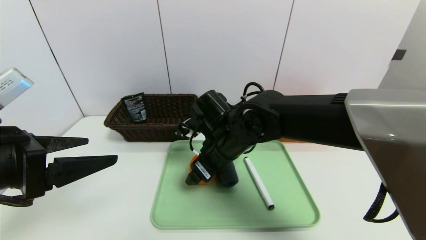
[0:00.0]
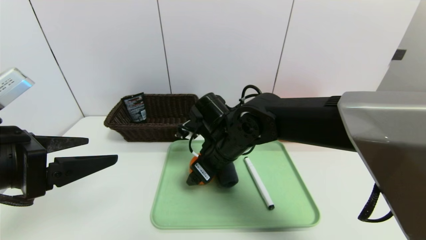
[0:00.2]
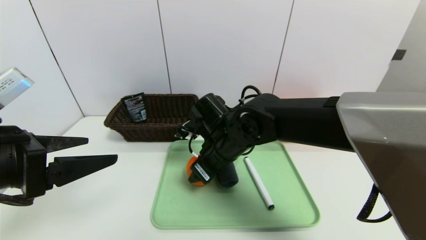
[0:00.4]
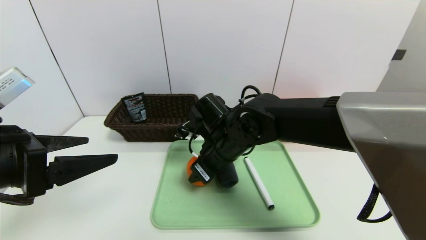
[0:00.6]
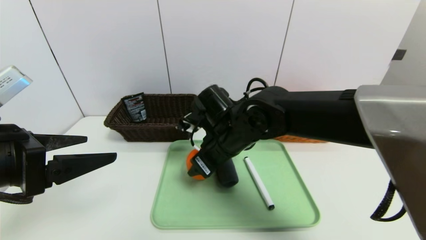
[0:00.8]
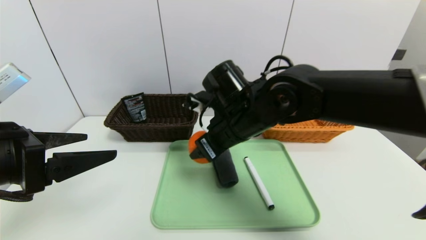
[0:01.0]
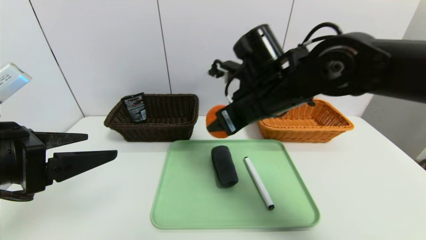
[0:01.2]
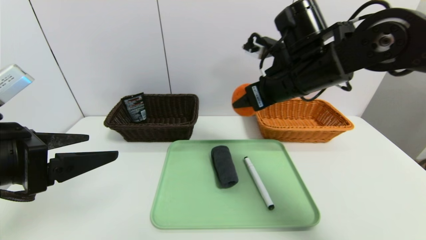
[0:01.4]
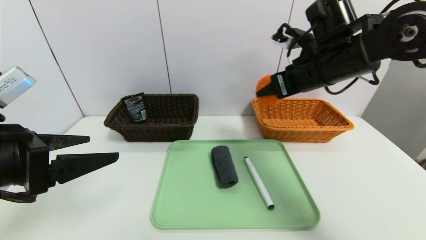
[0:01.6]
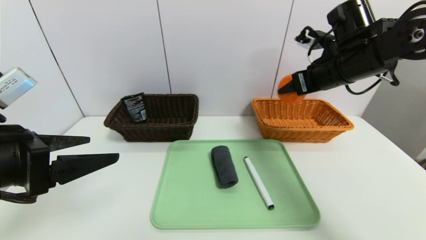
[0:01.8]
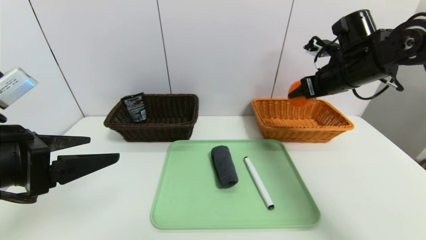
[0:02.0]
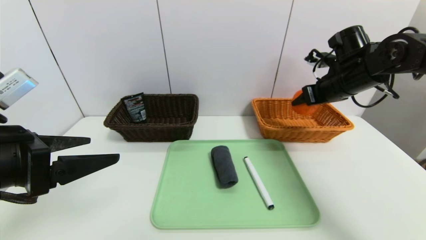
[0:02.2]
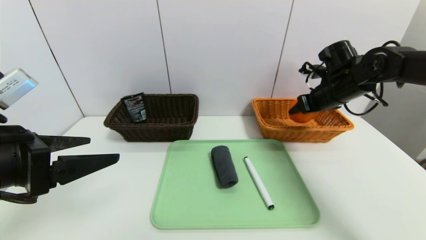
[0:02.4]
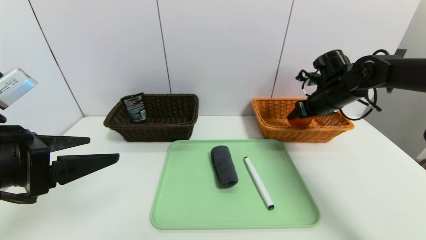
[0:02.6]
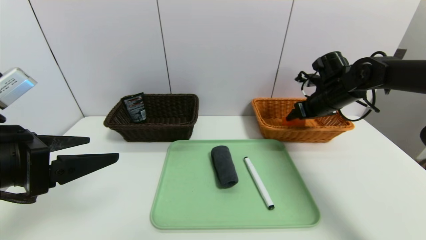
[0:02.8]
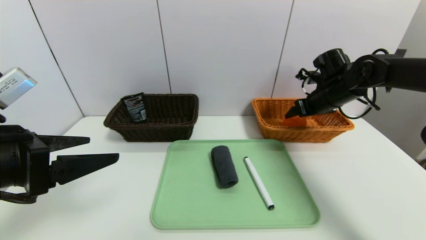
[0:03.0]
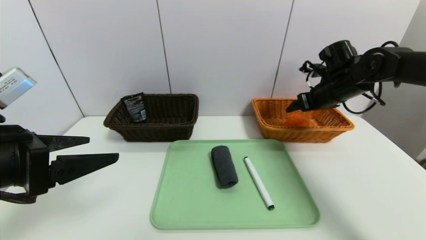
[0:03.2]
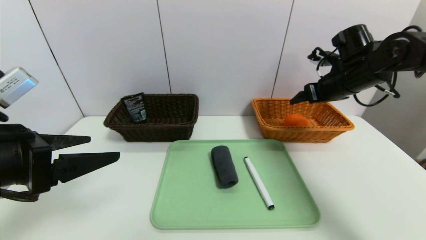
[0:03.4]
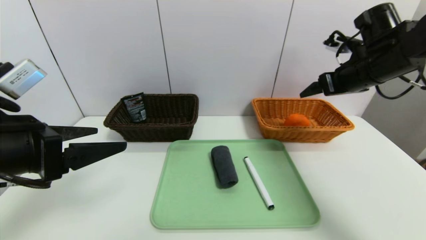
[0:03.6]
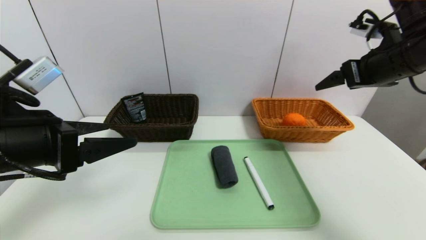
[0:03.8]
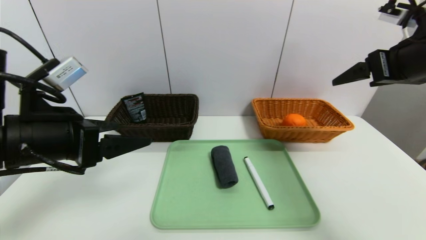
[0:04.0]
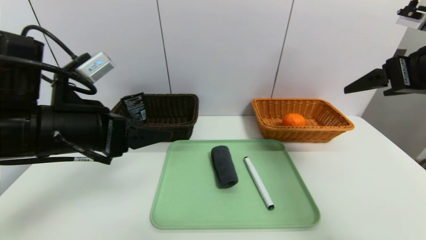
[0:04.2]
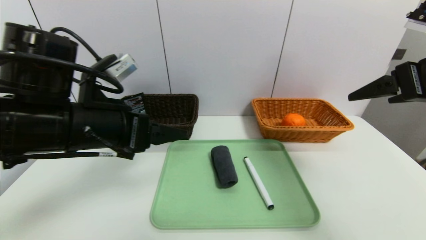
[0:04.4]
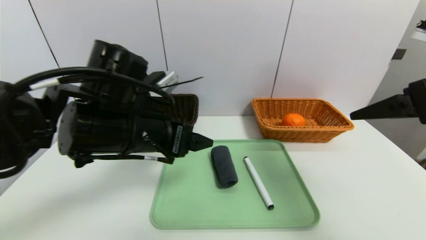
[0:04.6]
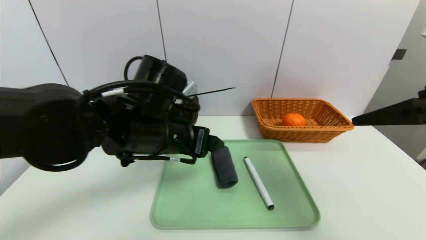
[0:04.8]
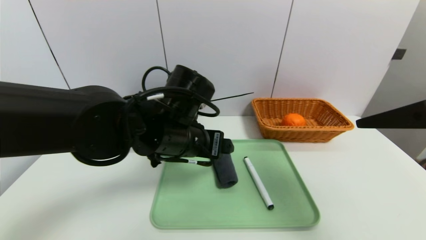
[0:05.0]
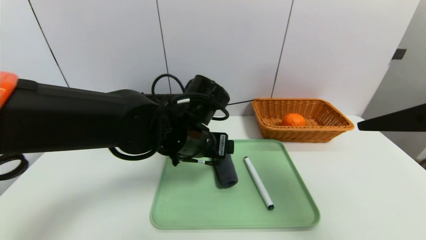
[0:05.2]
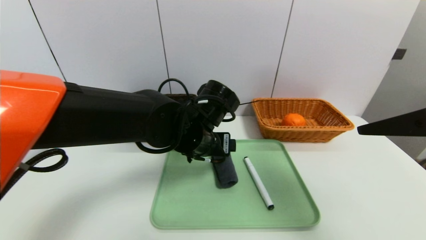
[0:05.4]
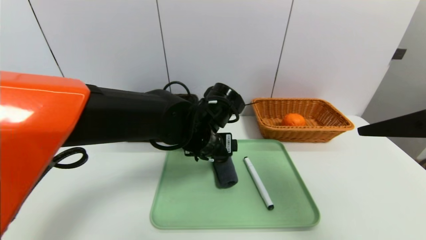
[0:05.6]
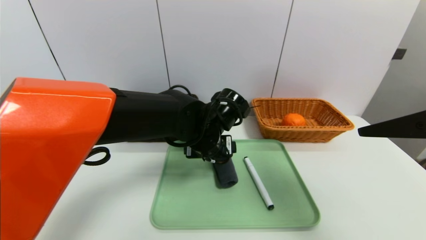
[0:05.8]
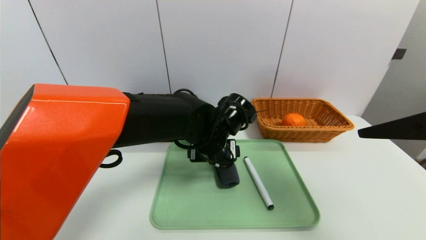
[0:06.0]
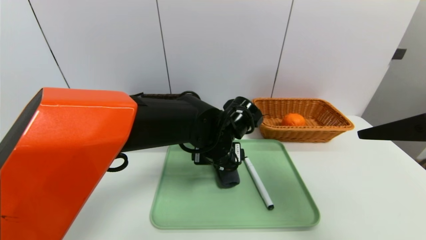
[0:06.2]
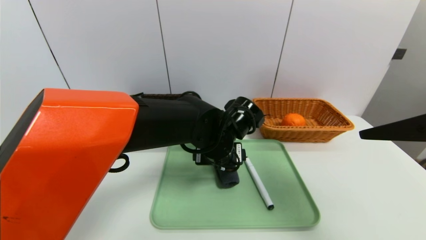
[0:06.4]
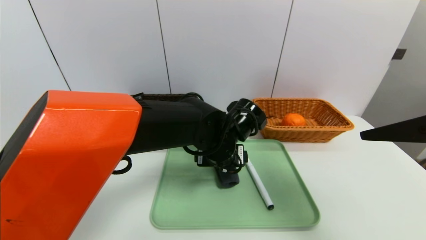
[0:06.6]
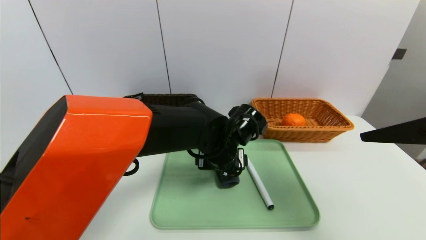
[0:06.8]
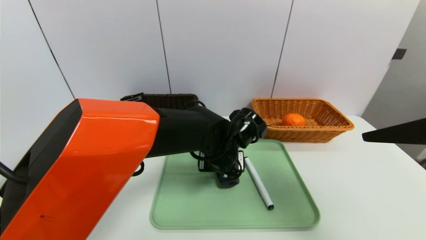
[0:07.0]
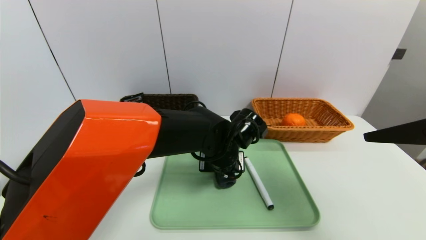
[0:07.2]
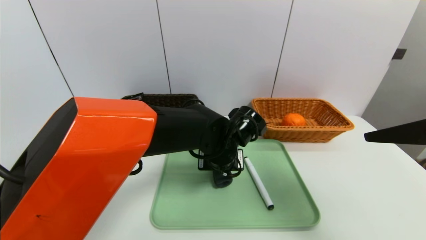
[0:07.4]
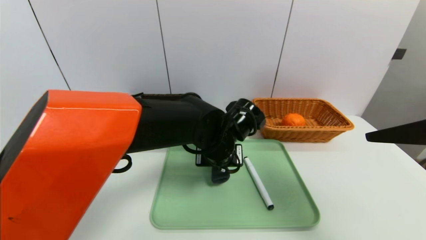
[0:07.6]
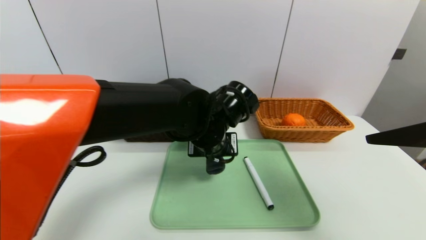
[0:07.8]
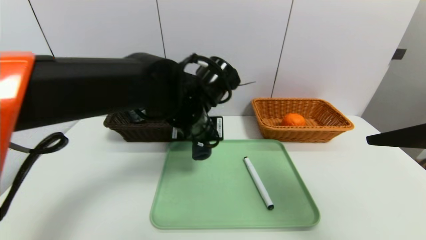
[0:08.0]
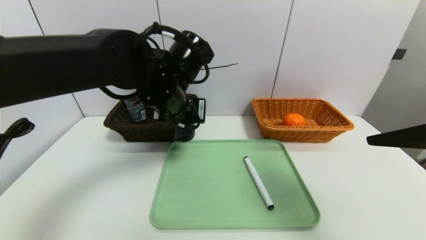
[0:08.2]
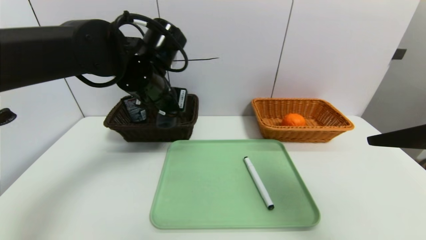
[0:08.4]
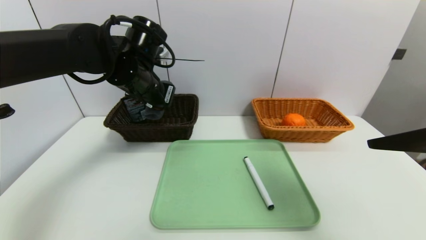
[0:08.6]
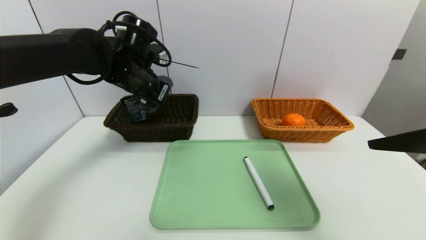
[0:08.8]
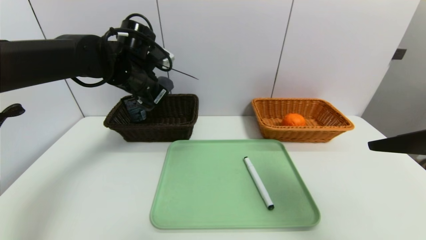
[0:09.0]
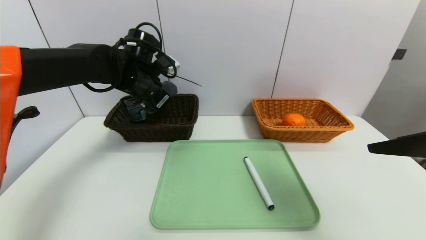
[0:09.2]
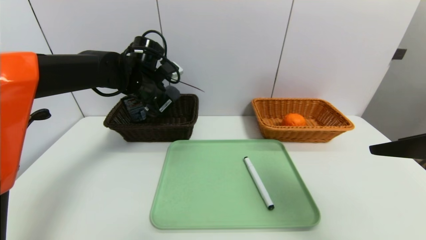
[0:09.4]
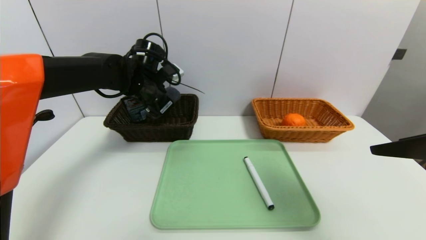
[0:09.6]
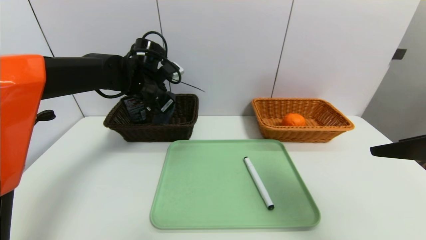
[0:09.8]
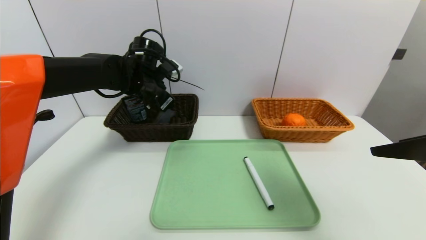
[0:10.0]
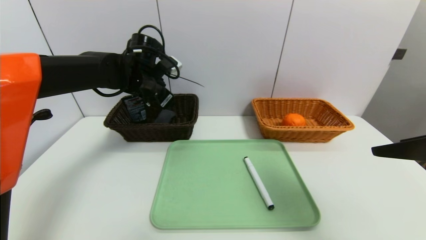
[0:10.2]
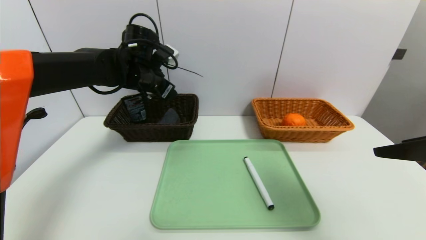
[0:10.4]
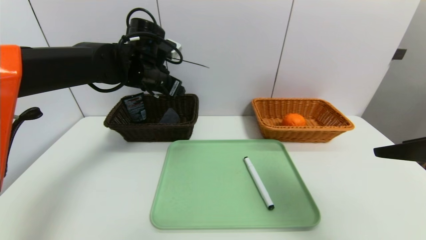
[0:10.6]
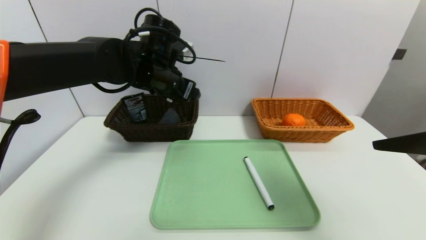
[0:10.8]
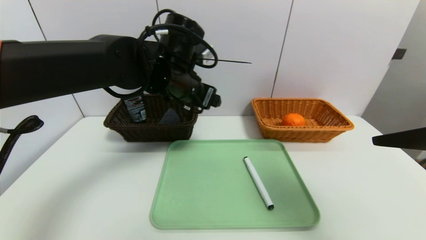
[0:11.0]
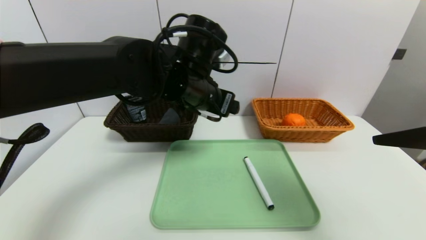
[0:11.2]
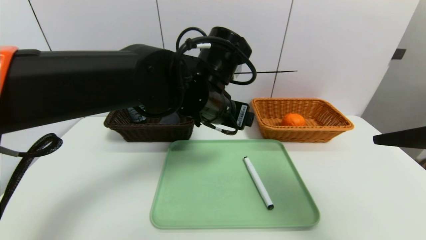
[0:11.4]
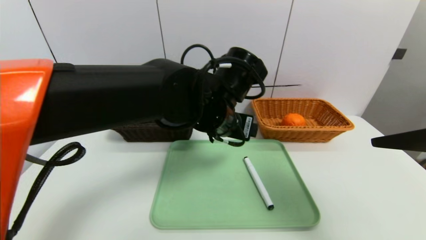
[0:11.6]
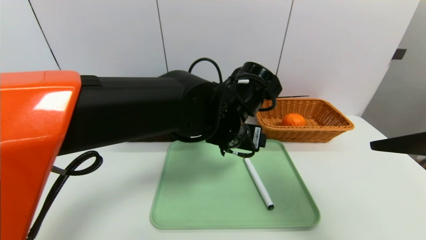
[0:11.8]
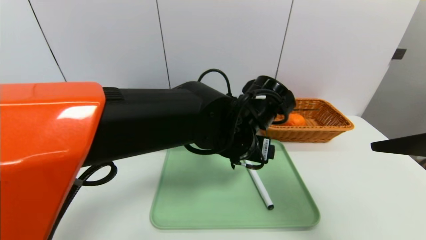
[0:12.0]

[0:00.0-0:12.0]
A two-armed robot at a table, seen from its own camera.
Task of the whole recording: place the food in the right basket with the right gripper, and place the non food items in the left basket with the left gripper.
Step, 0:00.0 to 0:03.2: Grasp the orange and put it in the right basket.
Step, 0:03.4 to 0:10.2: Grasp the grey towel and put it in the left basket.
0:00.0 to 0:01.6: The right gripper shifts some 20 cm to the right and upward, and closes.
0:01.6 to 0:03.0: The right gripper is displaced to the right, downward and forward by about 15 cm, and opens up.
0:03.0 to 0:04.4: The right gripper heads backward and upward, covering roughly 25 cm, and opens up; the left gripper shifts about 10 cm to the right and forward.
0:04.4 to 0:06.0: The left gripper shifts some 20 cm to the right, downward and forward. The right gripper heads backward, covering some 5 cm.
0:06.0 to 0:07.6: The left gripper closes its fingers.
0:07.6 to 0:09.0: The left gripper is displaced to the left, upward and forward by approximately 20 cm.
0:09.0 to 0:10.4: The left gripper opens up.
0:10.4 to 0:12.0: The left gripper goes some 25 cm to the right and backward.

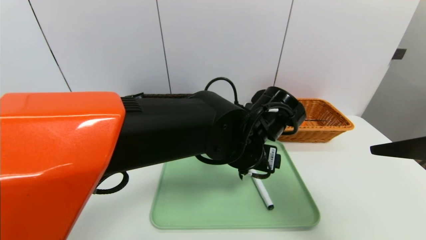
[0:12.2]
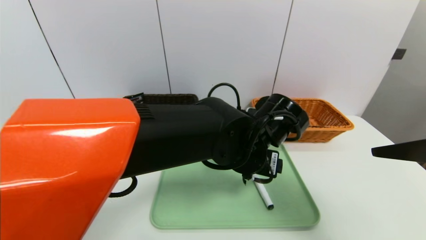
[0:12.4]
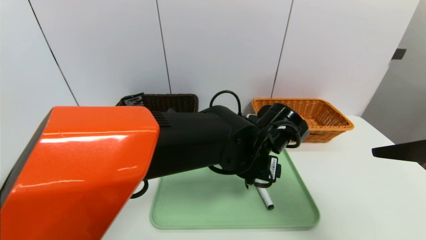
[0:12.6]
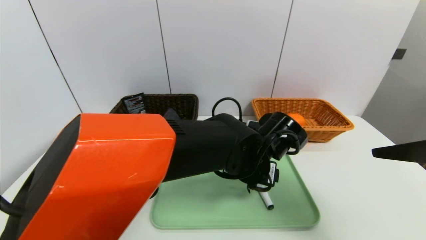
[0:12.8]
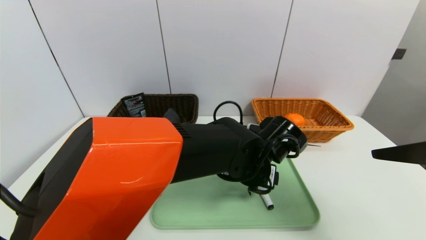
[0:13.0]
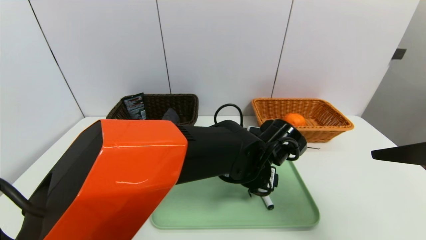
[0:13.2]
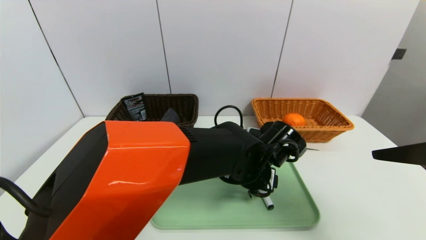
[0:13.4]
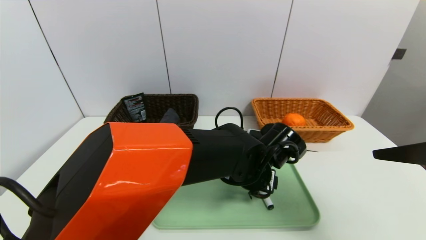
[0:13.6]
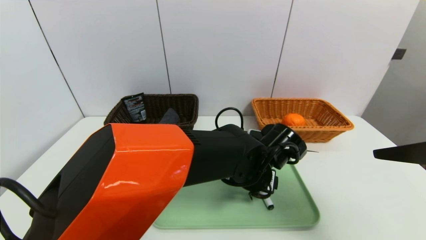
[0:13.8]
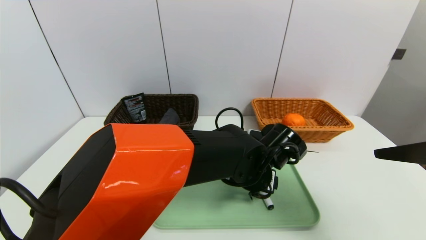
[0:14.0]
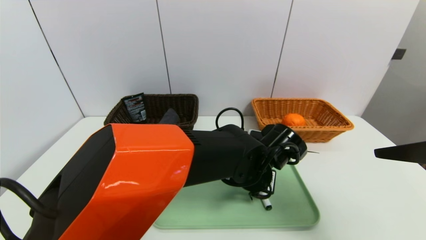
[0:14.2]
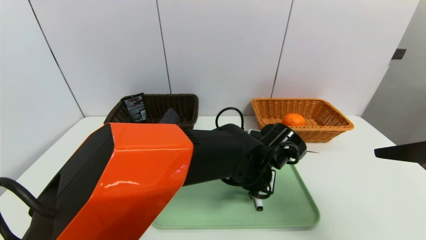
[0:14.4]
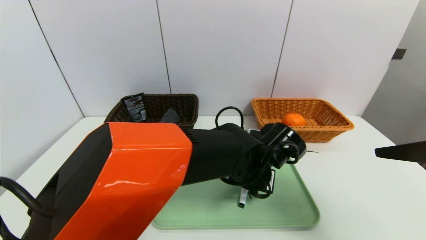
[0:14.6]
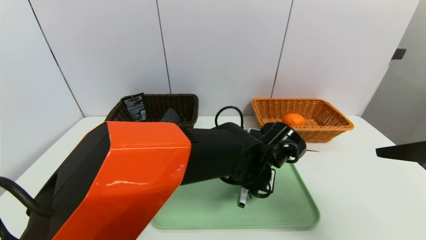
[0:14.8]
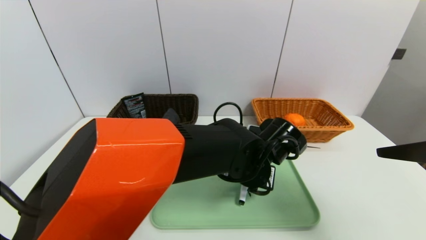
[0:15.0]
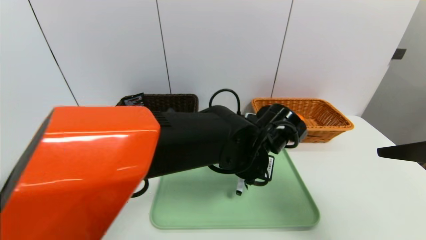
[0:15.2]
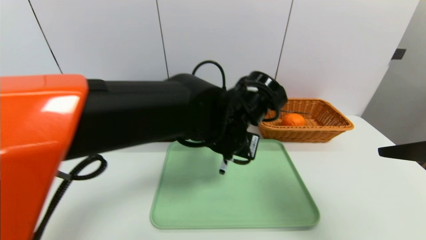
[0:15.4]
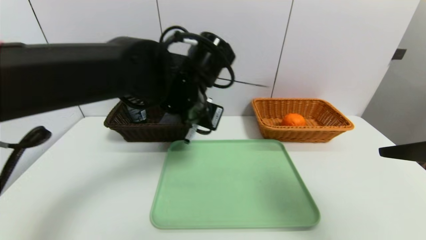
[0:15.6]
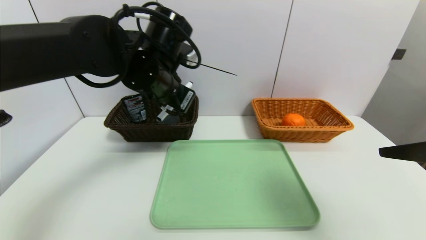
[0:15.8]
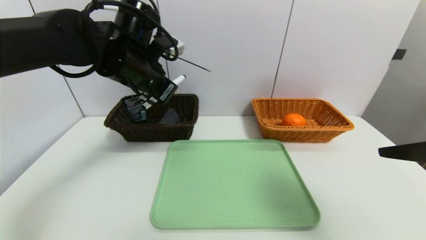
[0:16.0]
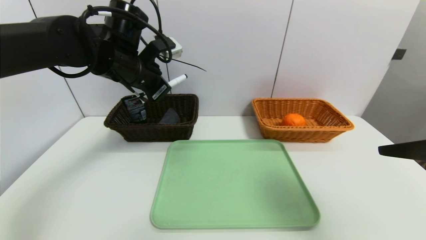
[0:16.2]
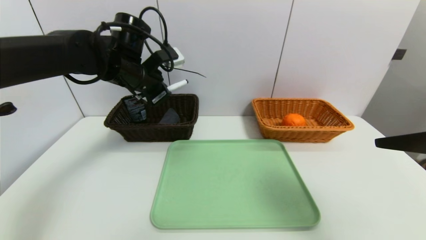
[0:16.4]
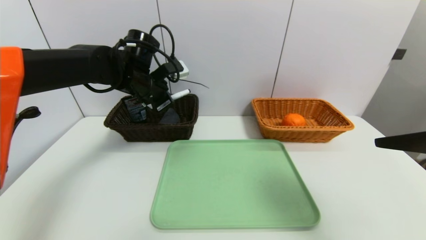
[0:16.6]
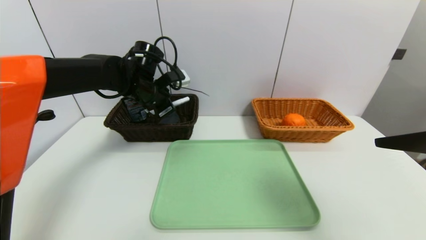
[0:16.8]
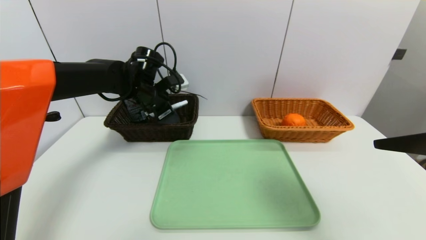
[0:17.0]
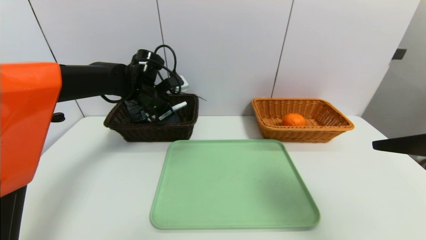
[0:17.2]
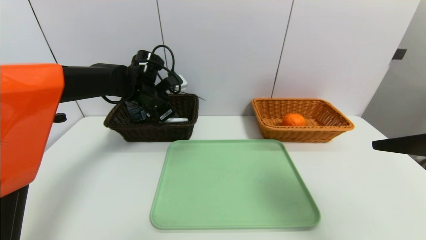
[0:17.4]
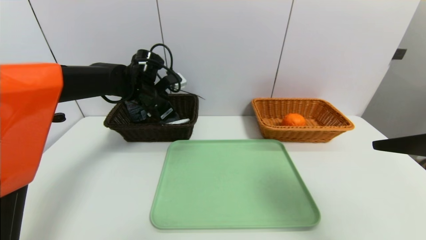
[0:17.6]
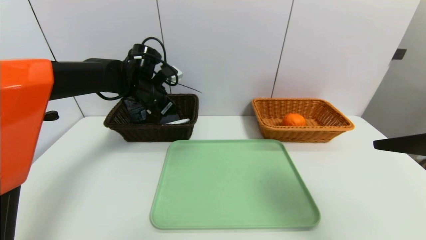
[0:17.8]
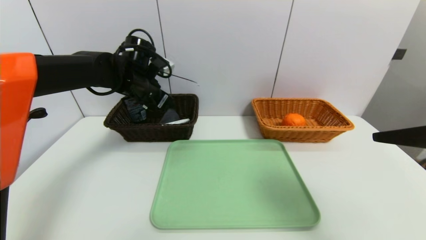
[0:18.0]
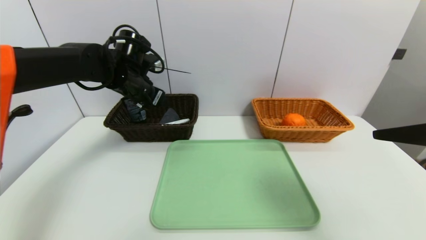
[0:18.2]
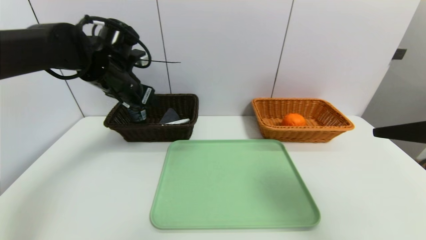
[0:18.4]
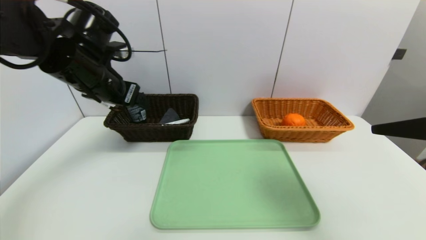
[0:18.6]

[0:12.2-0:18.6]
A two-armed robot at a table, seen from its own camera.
Task of the whole recording: place the food in the right basket with the right gripper, and place the non food items in the left basket with the left gripper.
Step, 0:12.2 to 0:17.8: Grasp the pen container and put it in the left basket.
0:12.2 to 0:13.8: The left gripper travels downward by approximately 5 cm.
0:13.8 to 0:15.4: The left gripper travels upward and to the left by approximately 10 cm, and closes up.
0:15.4 to 0:17.0: The left gripper travels to the left and forward by approximately 25 cm.
0:17.0 to 0:18.6: The left gripper travels backward and upward by about 15 cm, and opens up.
